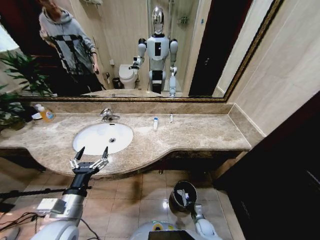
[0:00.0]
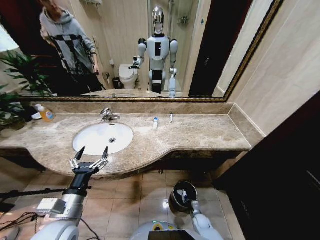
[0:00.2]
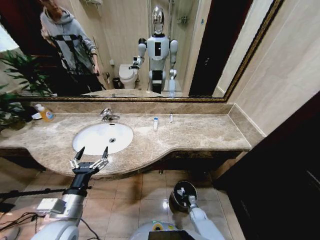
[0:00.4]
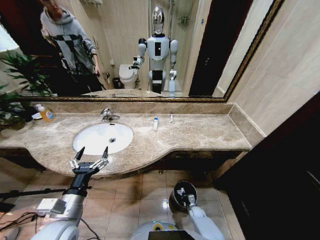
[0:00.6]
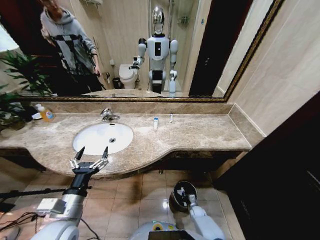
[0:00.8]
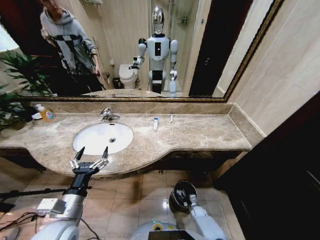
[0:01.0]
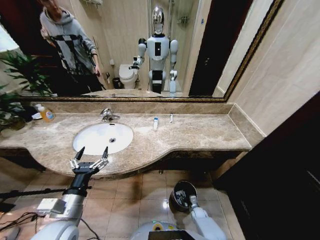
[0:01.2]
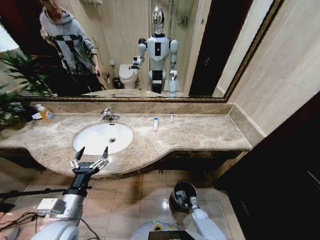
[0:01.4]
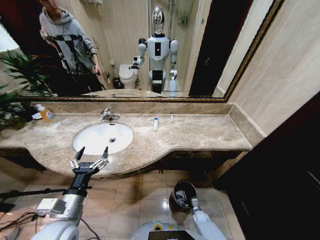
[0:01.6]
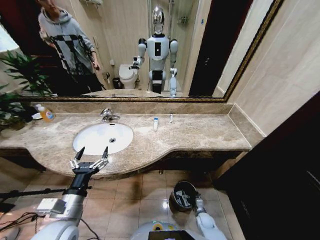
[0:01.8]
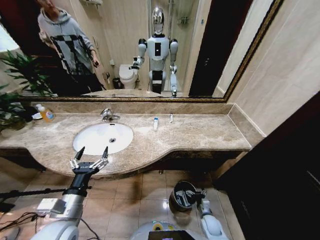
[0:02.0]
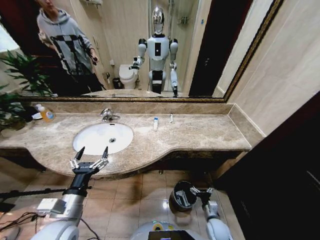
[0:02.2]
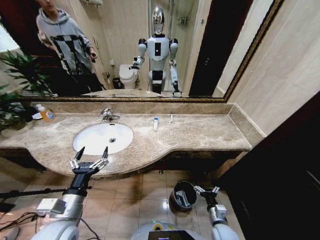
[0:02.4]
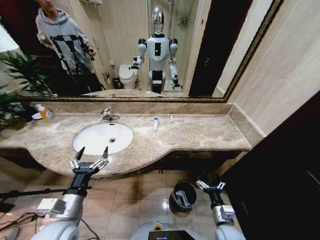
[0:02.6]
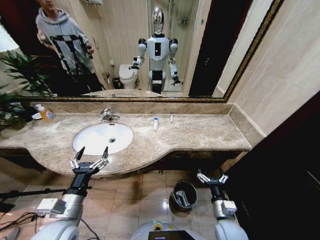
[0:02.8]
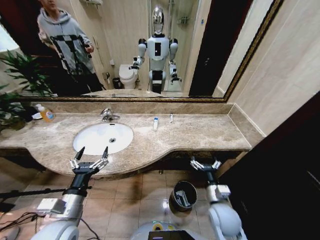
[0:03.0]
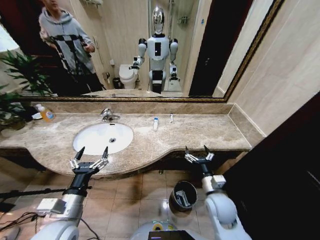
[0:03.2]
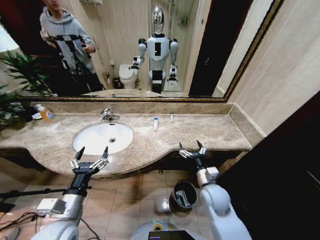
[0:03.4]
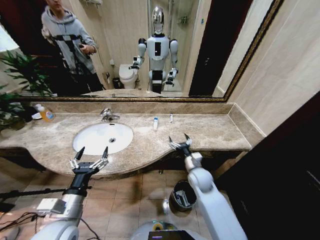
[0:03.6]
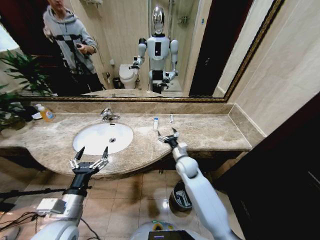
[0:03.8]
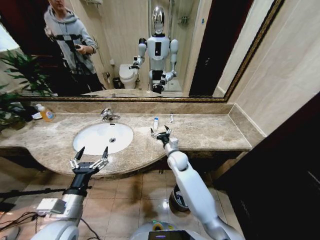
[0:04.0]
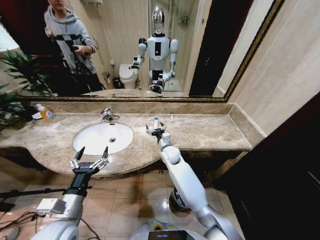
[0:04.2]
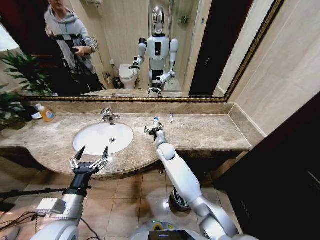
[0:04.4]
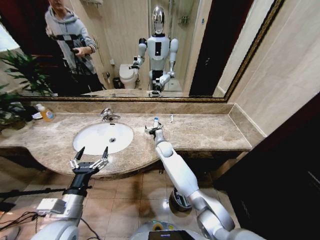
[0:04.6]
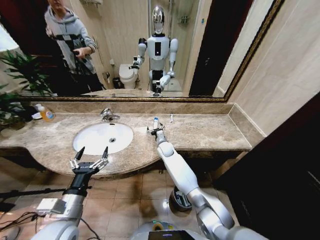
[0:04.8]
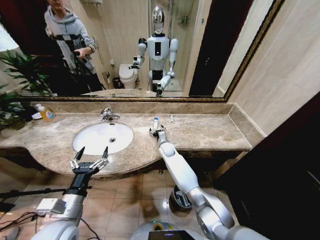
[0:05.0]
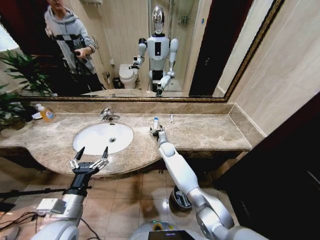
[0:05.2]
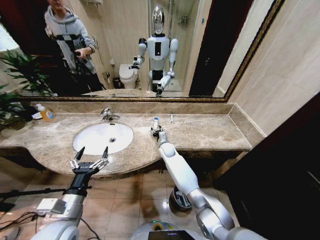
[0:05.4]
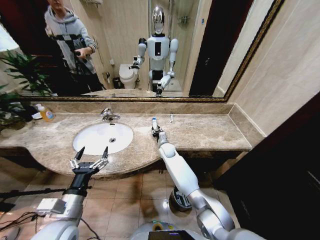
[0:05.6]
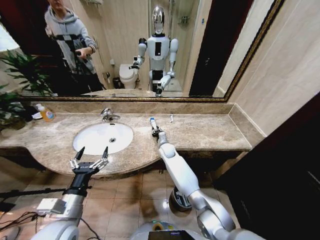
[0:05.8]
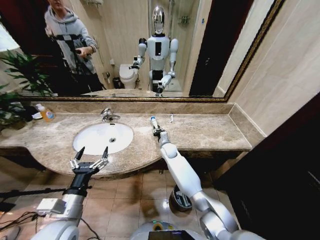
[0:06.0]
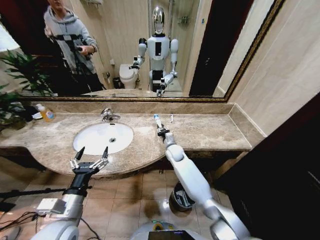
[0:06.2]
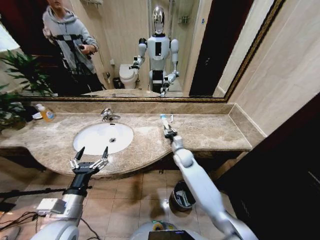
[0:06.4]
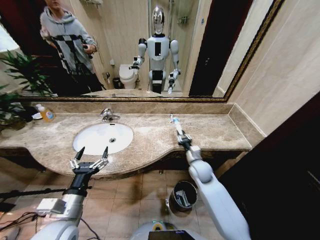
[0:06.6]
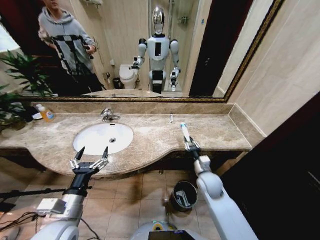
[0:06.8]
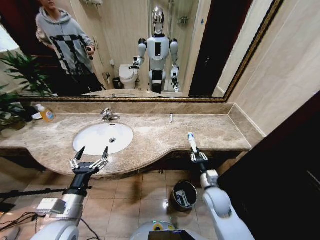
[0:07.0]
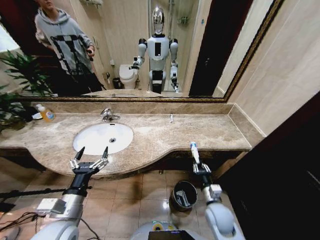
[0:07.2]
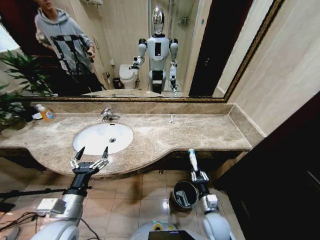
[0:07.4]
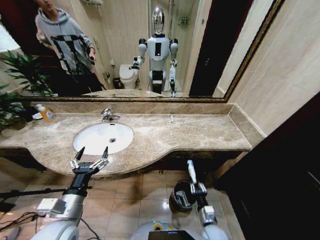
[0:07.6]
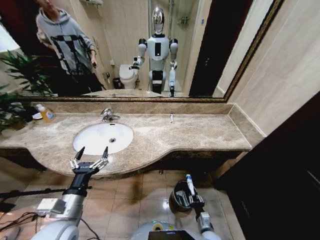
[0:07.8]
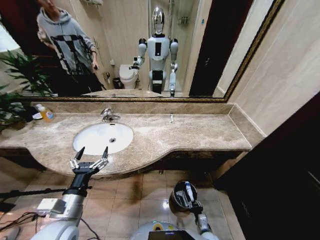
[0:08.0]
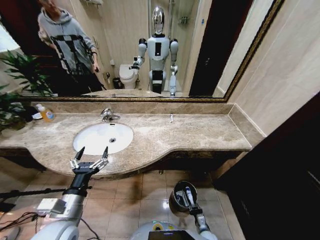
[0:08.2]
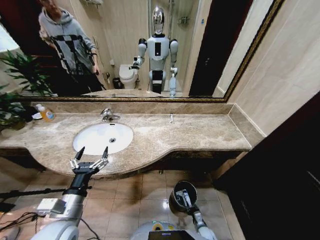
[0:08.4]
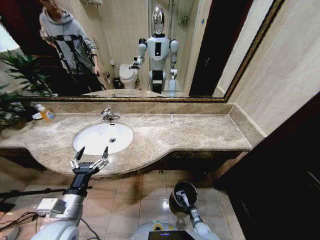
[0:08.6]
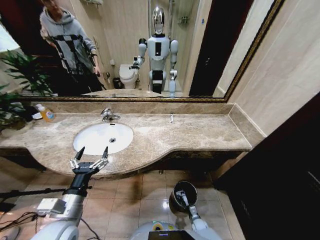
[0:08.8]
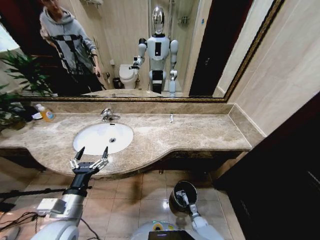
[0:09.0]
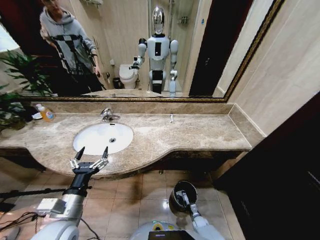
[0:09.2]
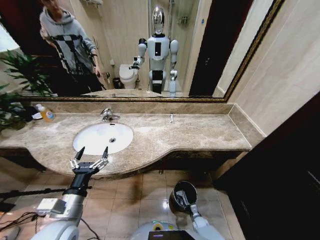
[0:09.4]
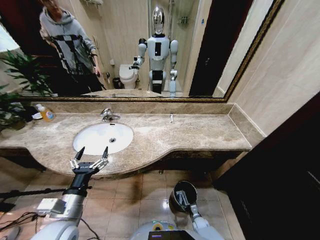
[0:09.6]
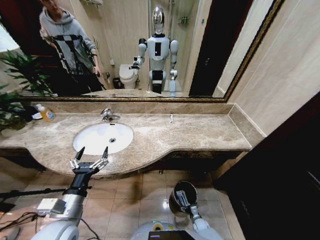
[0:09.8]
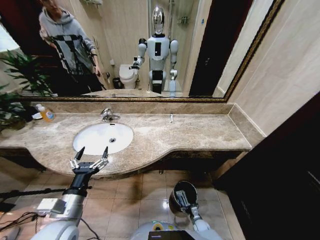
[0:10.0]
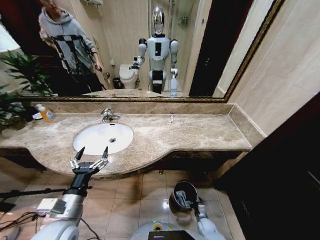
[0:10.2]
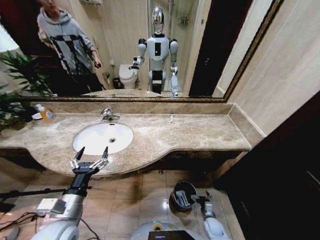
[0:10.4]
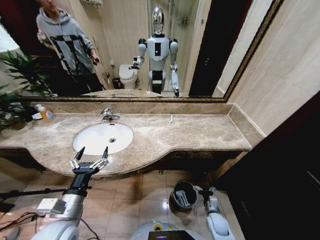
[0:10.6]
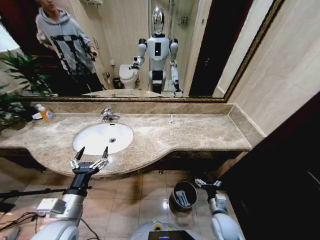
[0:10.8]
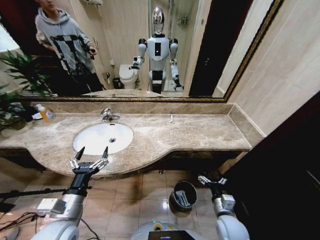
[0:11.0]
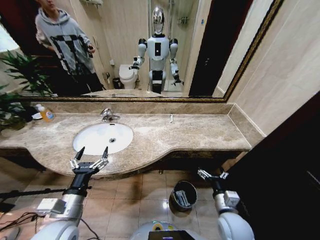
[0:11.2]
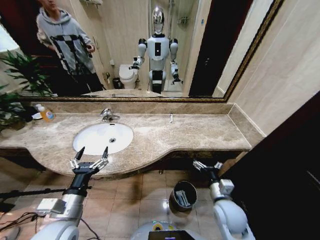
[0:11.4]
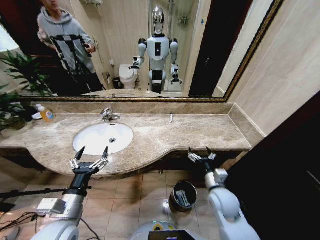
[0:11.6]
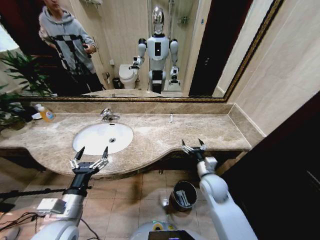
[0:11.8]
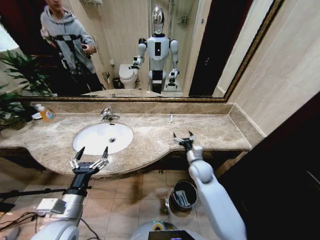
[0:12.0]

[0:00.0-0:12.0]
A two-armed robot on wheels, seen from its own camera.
Task of the whole recording: Pick up the trash from the sink and place it in the trash bin.
0:00.0 to 0:01.6: The right gripper moves some 5 cm, and opens.
0:01.6 to 0:03.0: The right gripper travels upward by about 35 cm.
0:03.0 to 0:04.4: The right gripper heads forward and to the left, covering roughly 35 cm.
0:04.4 to 0:06.0: The right gripper closes up.
0:06.0 to 0:07.6: The right gripper is displaced backward and to the right by some 40 cm.
0:07.6 to 0:09.0: The right gripper moves downward, some 25 cm.
0:09.0 to 0:10.4: The right gripper goes roughly 10 cm upward, and opens up.
0:10.4 to 0:12.0: The right gripper goes roughly 35 cm upward and forward.

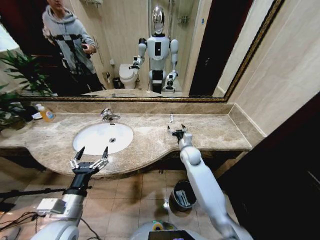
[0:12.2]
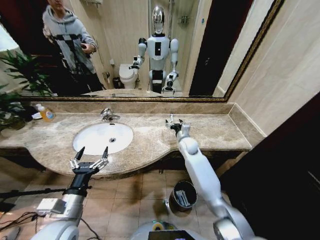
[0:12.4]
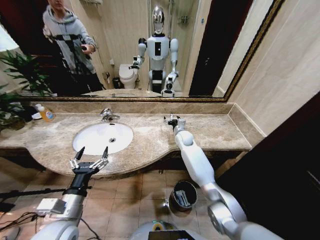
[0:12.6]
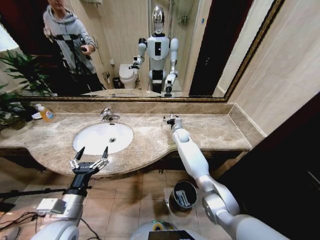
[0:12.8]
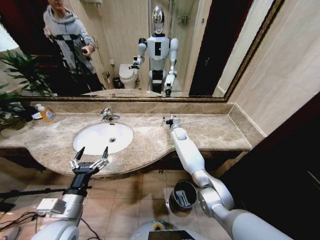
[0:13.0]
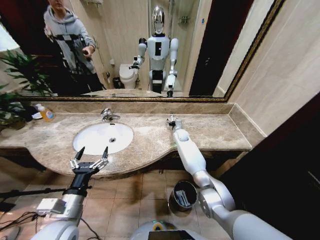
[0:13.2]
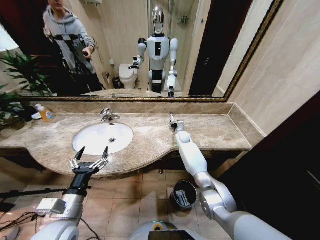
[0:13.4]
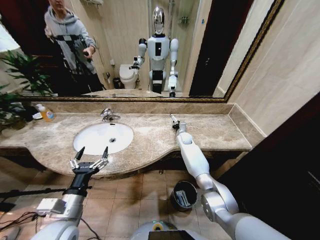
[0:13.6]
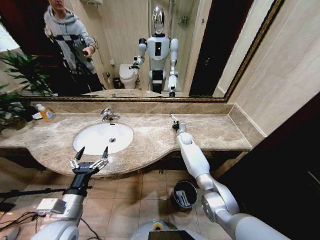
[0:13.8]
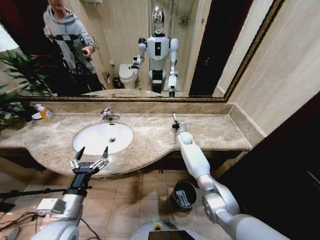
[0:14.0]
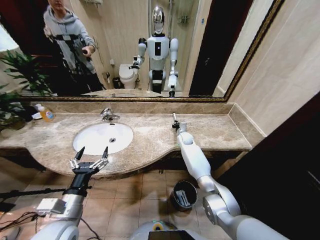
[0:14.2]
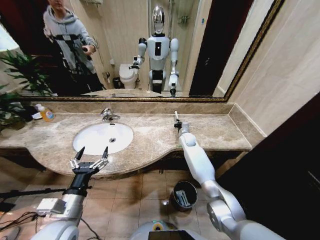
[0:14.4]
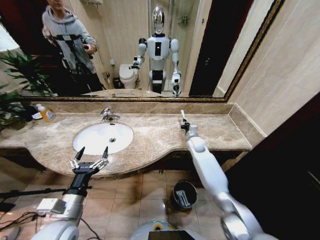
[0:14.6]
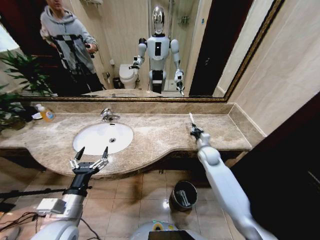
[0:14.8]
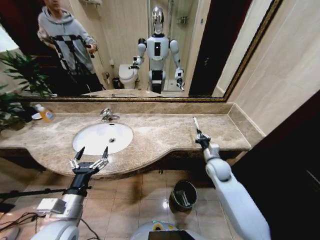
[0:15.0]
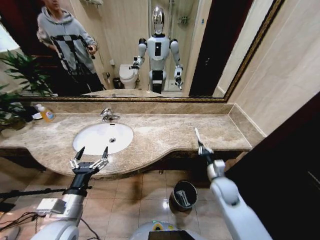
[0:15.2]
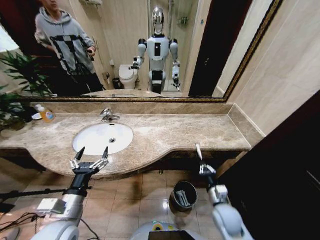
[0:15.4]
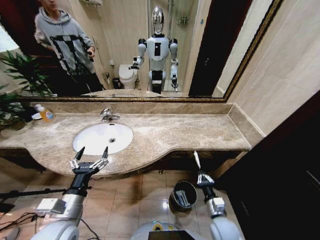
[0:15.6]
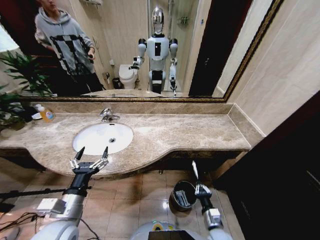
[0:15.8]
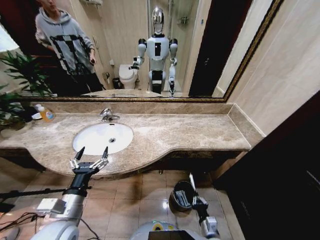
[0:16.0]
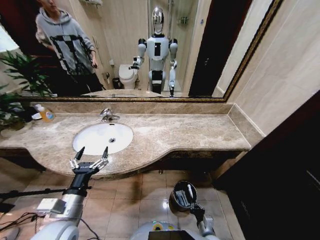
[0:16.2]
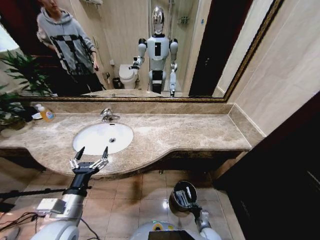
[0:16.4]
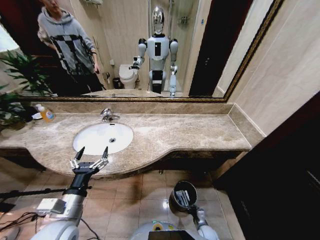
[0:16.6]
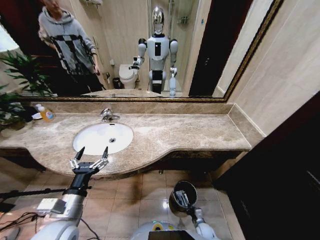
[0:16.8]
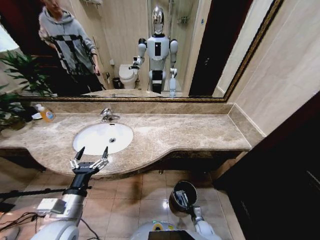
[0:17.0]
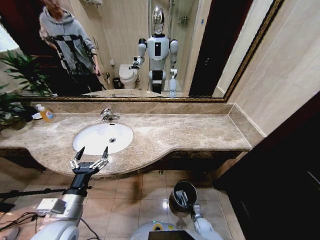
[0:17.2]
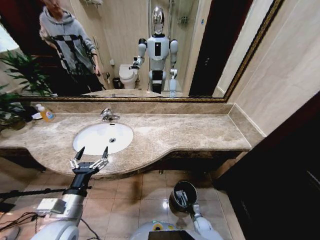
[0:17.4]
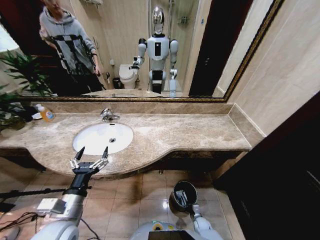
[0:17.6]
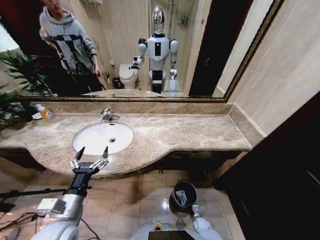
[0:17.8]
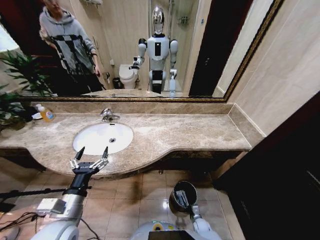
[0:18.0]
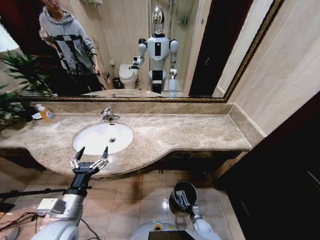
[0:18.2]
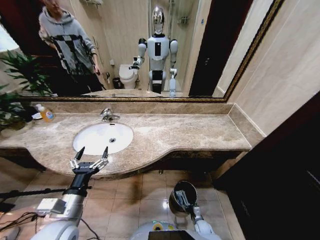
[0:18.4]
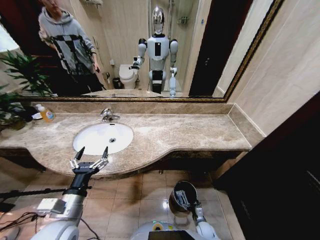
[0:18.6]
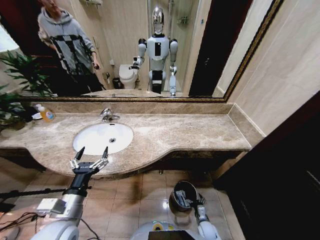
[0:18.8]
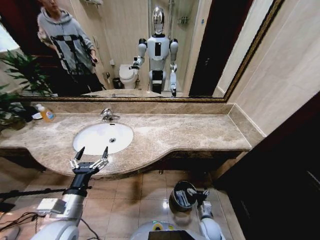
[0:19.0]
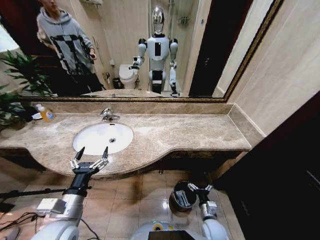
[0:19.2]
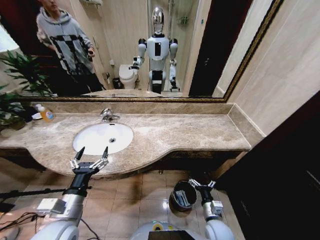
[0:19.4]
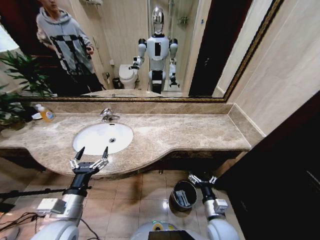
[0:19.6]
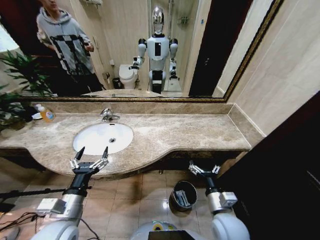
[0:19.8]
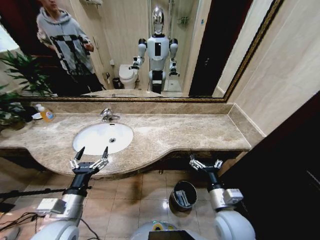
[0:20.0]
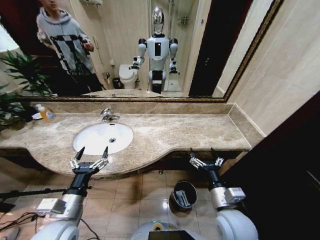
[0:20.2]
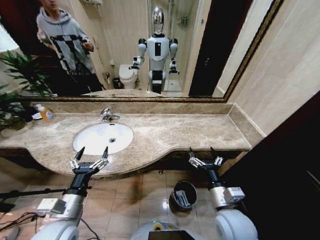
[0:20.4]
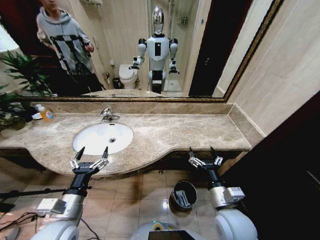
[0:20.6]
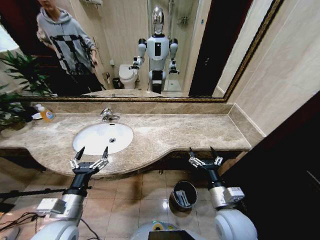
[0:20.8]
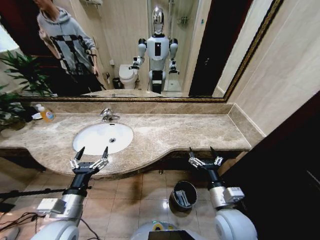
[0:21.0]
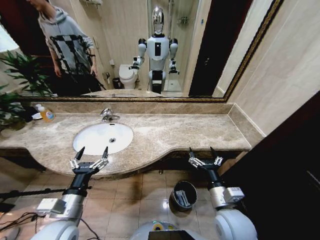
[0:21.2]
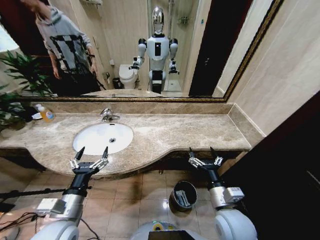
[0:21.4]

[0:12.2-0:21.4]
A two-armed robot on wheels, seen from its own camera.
Task of the whole recording: Pick up the trash from the sink and place it in the trash bin.
0:12.2 to 0:13.8: The right gripper moves forward, roughly 15 cm, and closes.
0:13.8 to 0:15.2: The right gripper travels backward by roughly 30 cm.
0:15.2 to 0:16.8: The right gripper heads downward, covering roughly 35 cm.
0:18.4 to 0:19.8: The right gripper moves upward, some 35 cm.
0:19.8 to 0:21.4: The right gripper goes about 5 cm upward.

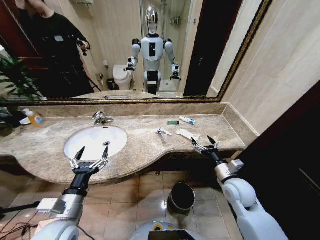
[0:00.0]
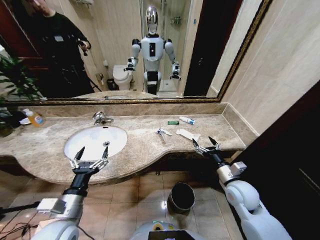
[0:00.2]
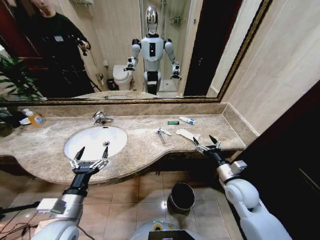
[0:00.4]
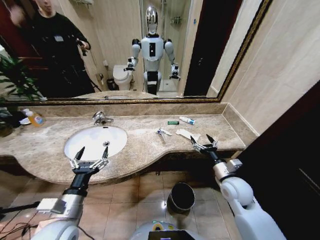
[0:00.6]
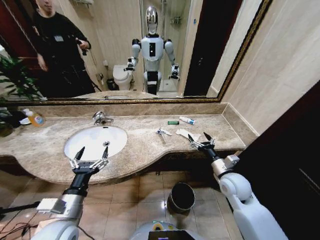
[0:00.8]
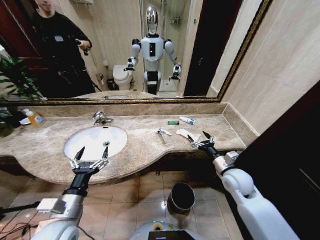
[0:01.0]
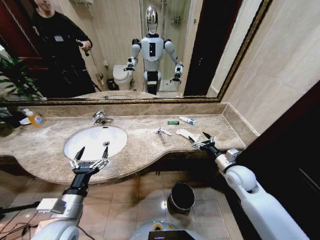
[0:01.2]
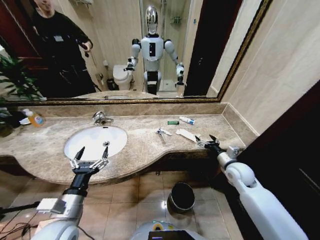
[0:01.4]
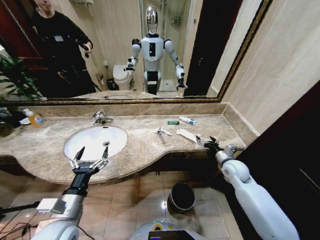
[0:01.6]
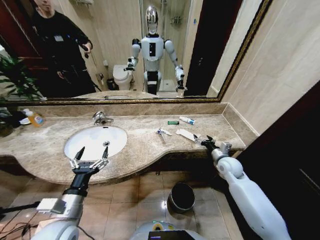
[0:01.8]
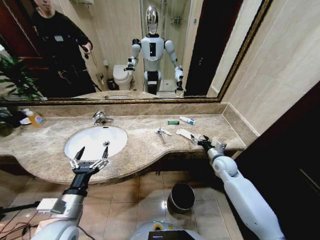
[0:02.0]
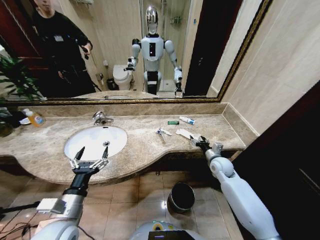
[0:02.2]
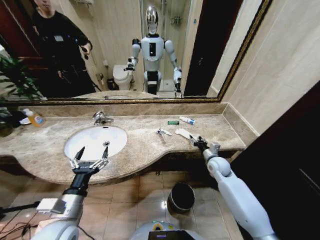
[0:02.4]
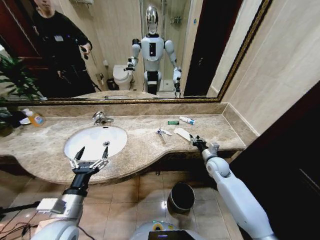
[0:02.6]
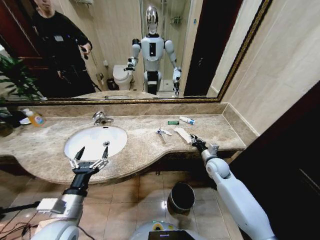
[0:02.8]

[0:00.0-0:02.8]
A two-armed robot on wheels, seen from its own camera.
Task of the whole recording: Pick up the trash from the sink and place it in the trash bin.
0:01.4 to 0:02.8: The right gripper travels to the left and forward by about 10 cm, and closes up.
